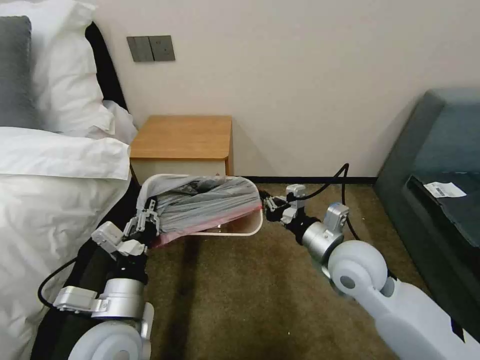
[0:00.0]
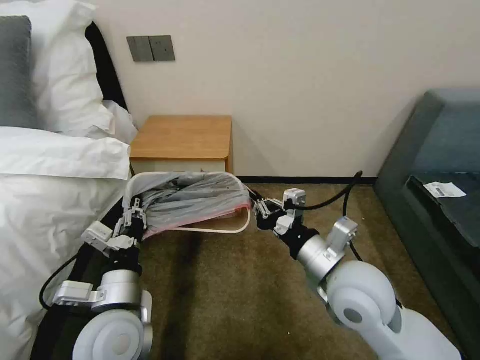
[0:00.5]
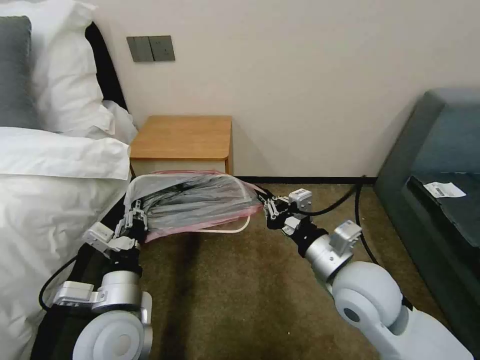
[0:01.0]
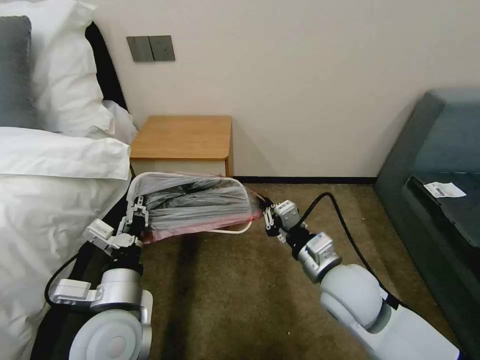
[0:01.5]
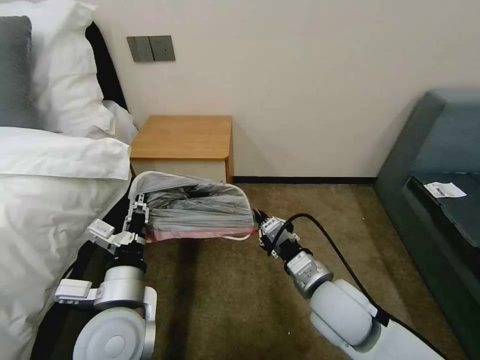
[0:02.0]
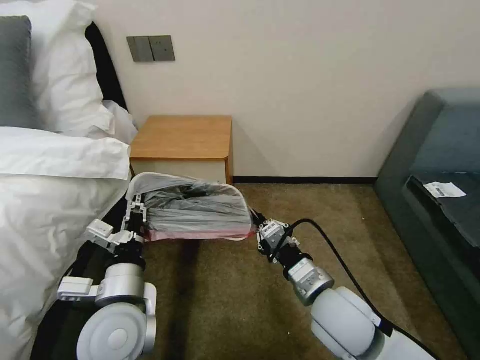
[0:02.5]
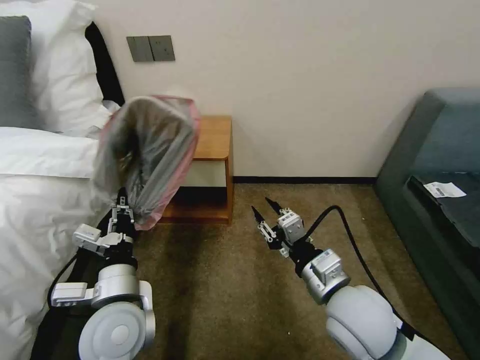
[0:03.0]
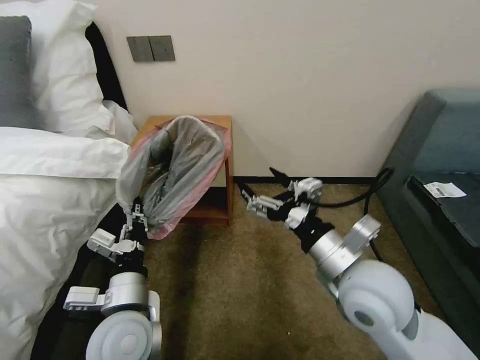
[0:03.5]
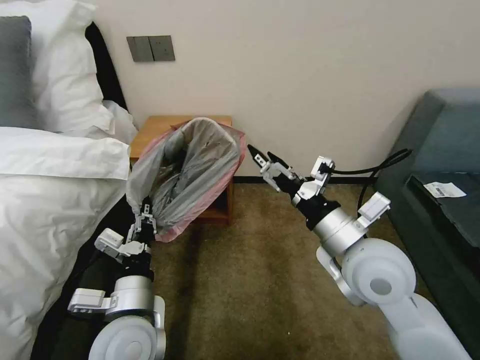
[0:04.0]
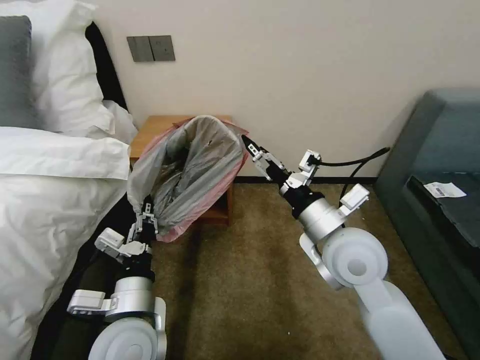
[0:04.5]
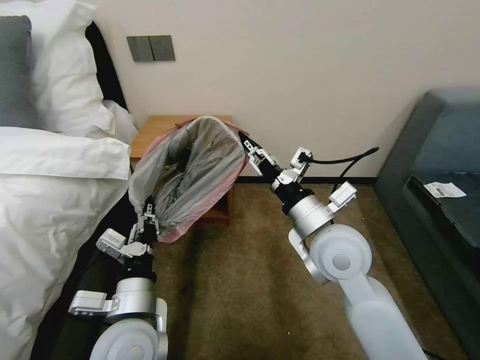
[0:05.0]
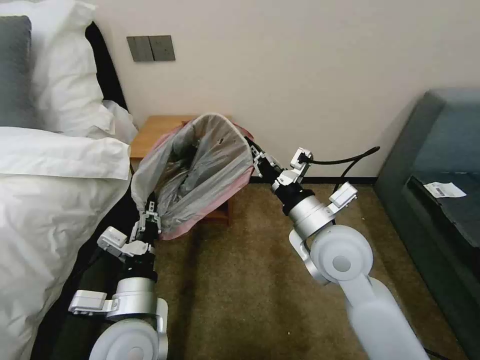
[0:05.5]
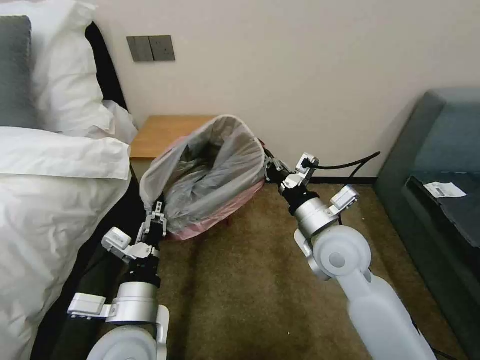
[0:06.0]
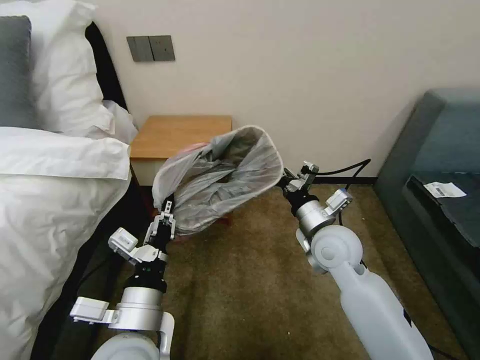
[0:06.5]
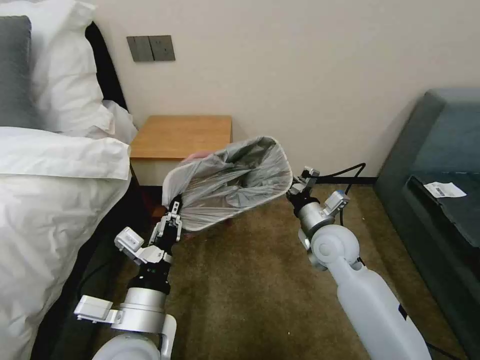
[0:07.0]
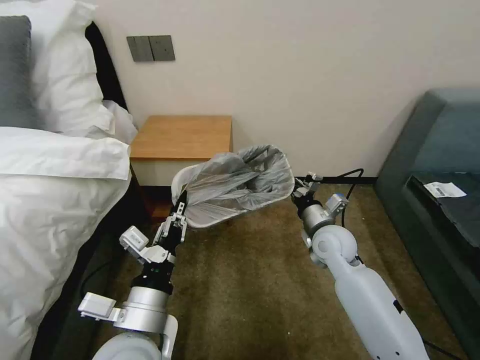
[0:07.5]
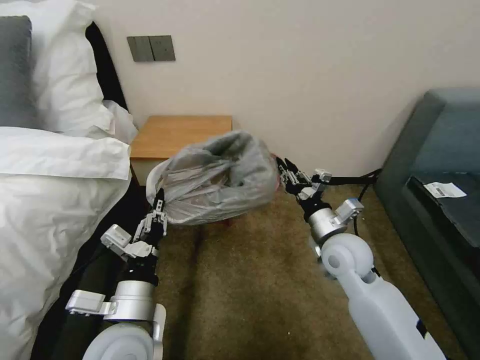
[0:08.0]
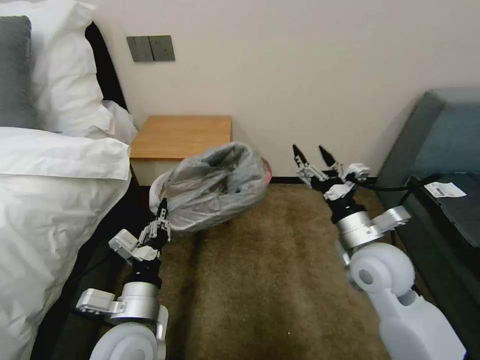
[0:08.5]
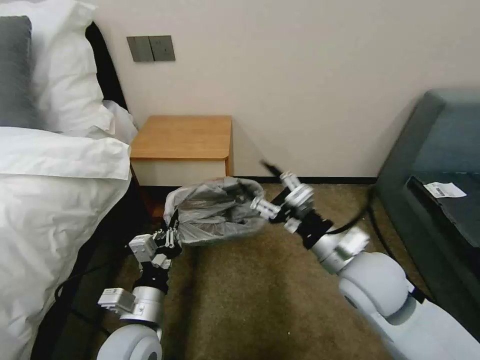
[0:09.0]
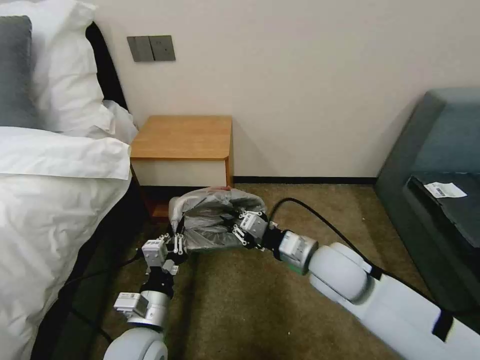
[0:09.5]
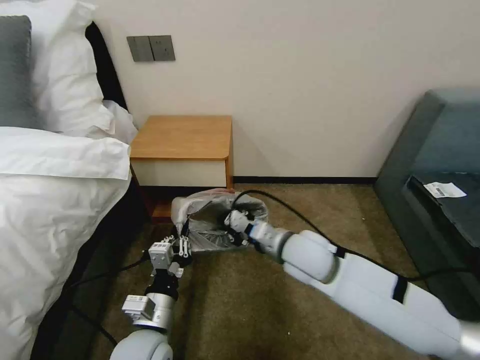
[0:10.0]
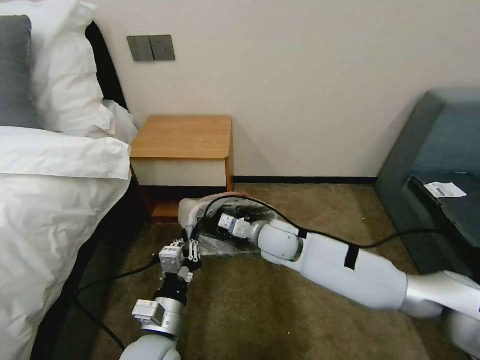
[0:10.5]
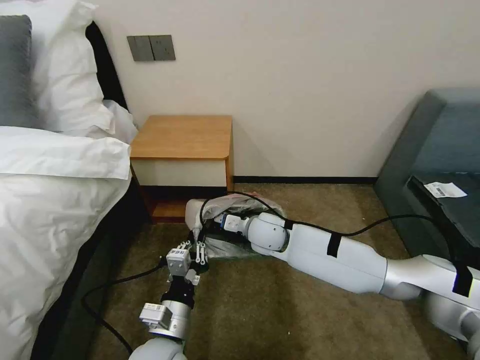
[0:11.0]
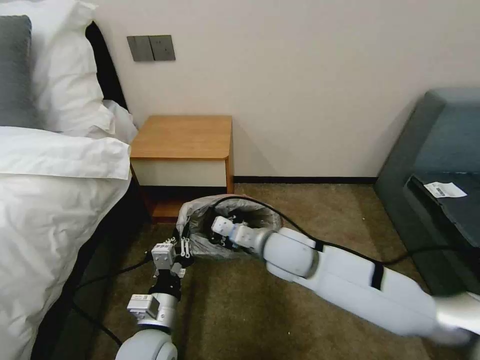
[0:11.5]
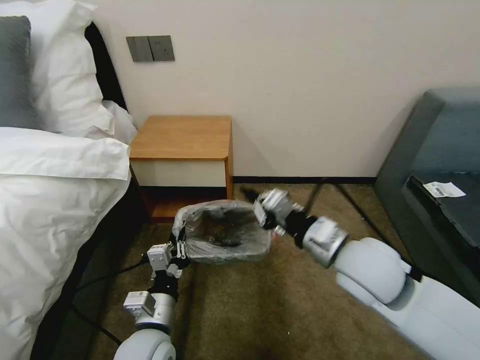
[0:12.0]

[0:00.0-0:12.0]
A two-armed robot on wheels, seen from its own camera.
Task of the whole recording: Pick up the garbage bag from the table and place it over the trash can.
0:00.0 to 0:02.0: The right gripper is displaced backward by roughly 5 cm.
0:02.0 to 0:04.0: The right gripper shifts some 10 cm upward, and opens.
0:04.0 to 0:06.0: The right gripper moves approximately 5 cm, and closes.
0:06.0 to 0:08.0: The right gripper shifts some 5 cm downward.
0:08.0 to 0:10.0: The right gripper moves to the left, some 10 cm, and opens, then closes again. Meanwhile the left gripper moves downward, approximately 10 cm.
0:10.0 to 0:12.0: The right gripper goes roughly 10 cm to the right, upward and backward.

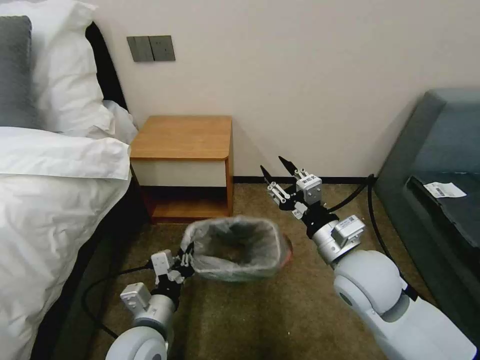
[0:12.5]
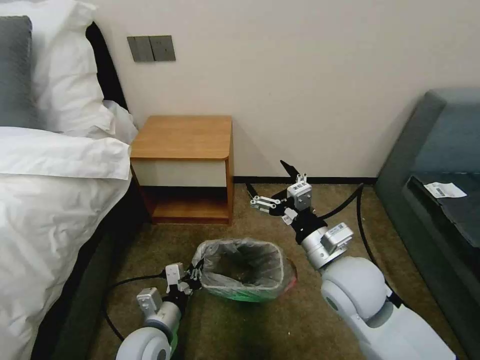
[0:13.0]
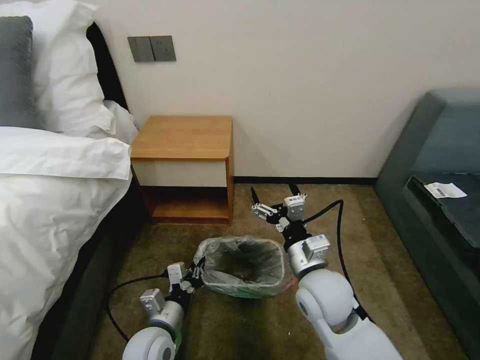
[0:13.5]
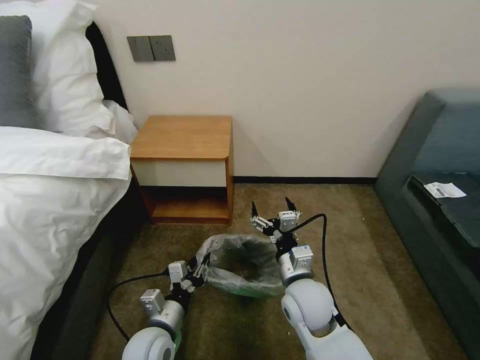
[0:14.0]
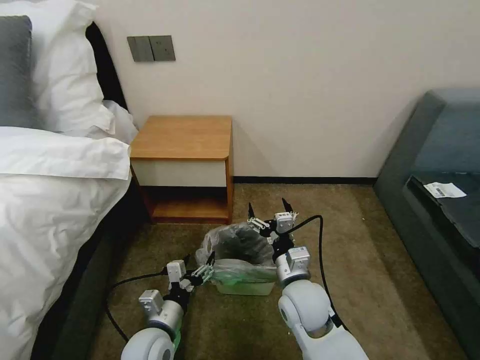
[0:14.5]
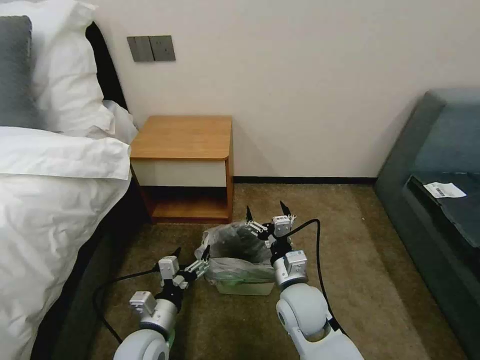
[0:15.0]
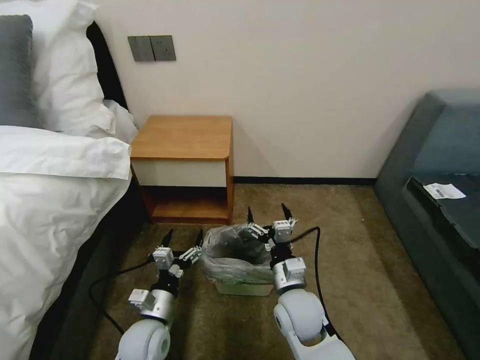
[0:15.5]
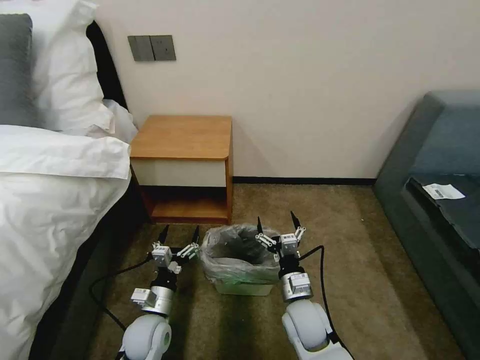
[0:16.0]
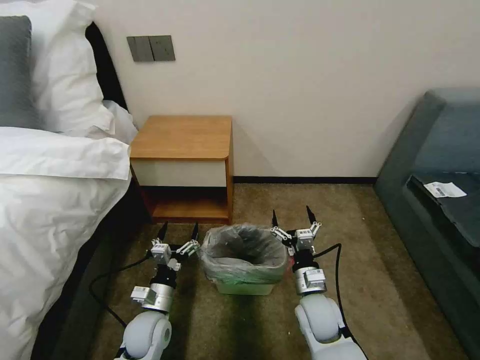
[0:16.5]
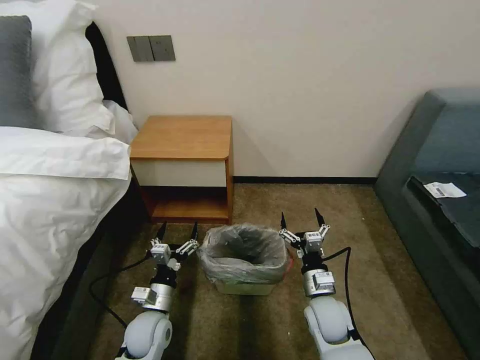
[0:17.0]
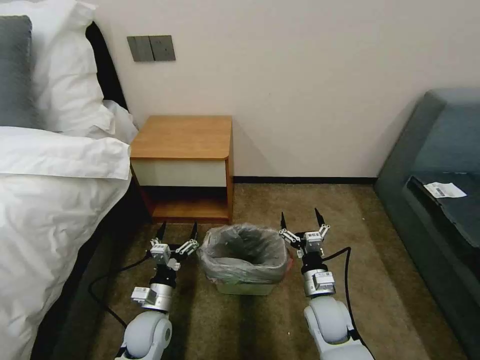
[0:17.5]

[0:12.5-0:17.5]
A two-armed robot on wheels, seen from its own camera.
Task of the whole recording: Pick up the garbage bag from the table and place it over the trash can.
0:12.5 to 0:15.0: The left gripper heads downward, covering approximately 5 cm, and opens. The right gripper moves downward and to the left, approximately 15 cm, and opens up.
0:15.0 to 0:17.5: The right gripper moves downward and to the right, some 10 cm, while the left gripper travels downward and forward by about 10 cm.

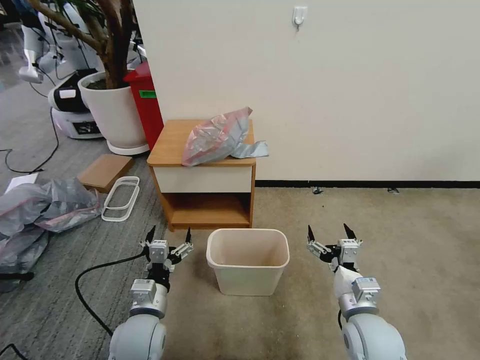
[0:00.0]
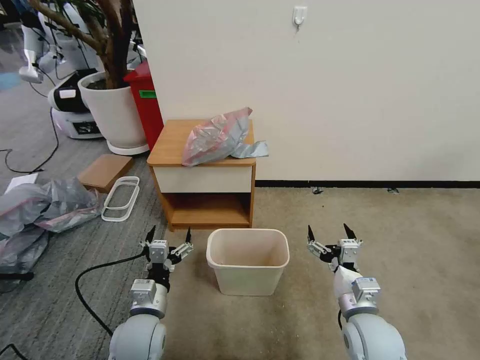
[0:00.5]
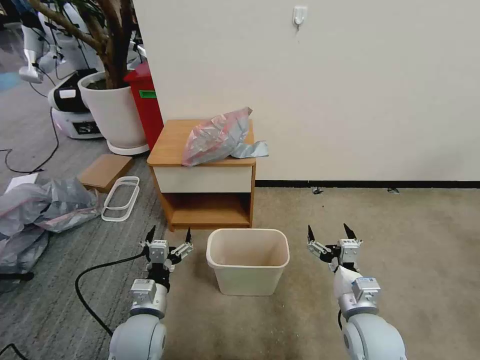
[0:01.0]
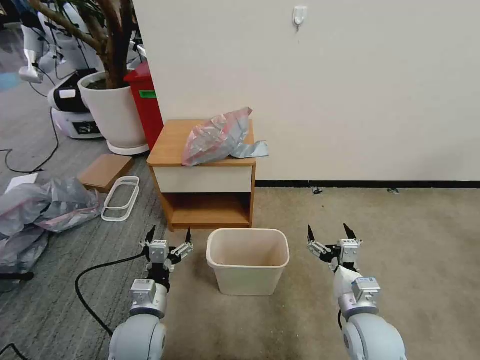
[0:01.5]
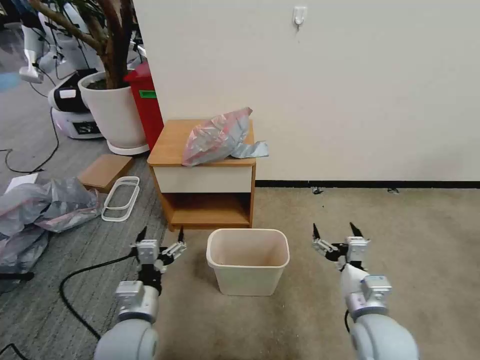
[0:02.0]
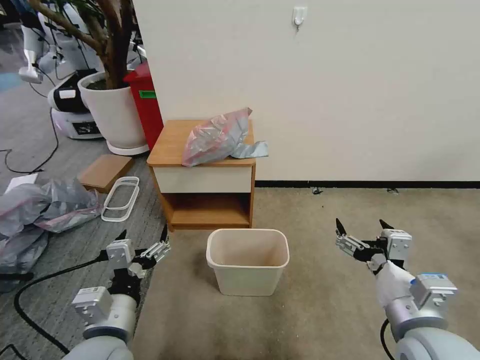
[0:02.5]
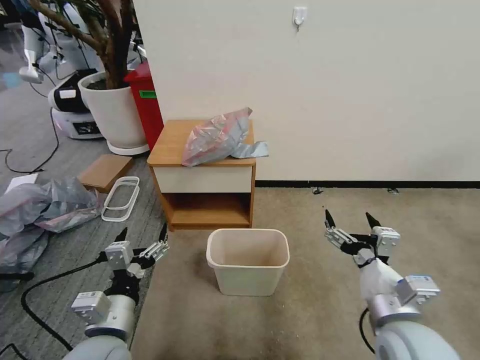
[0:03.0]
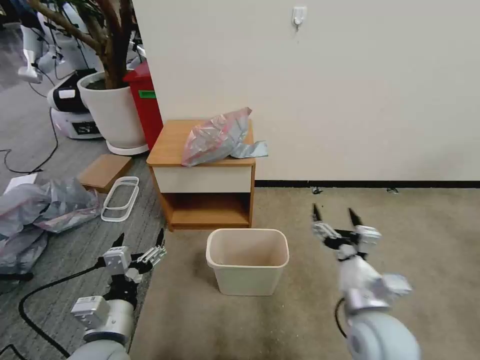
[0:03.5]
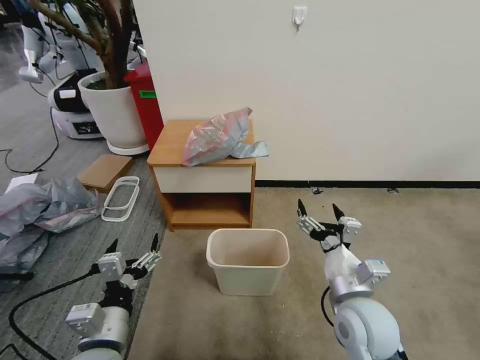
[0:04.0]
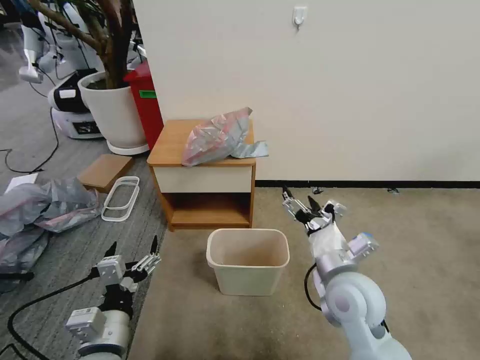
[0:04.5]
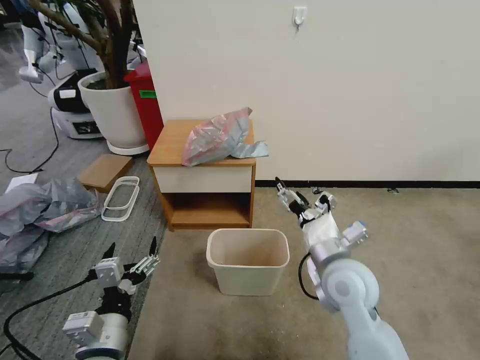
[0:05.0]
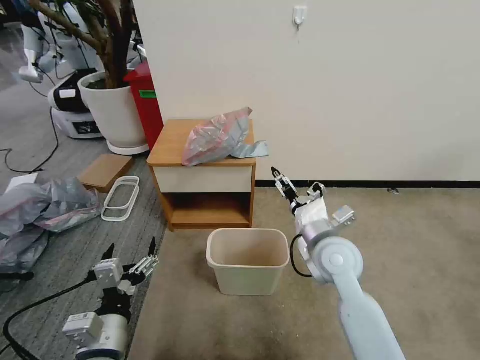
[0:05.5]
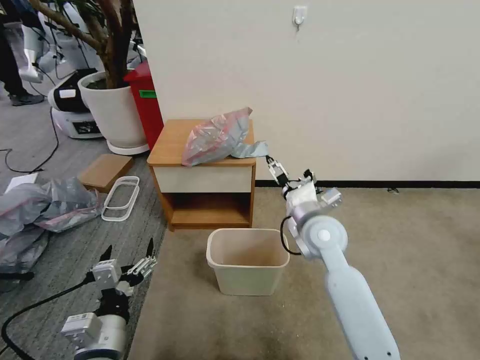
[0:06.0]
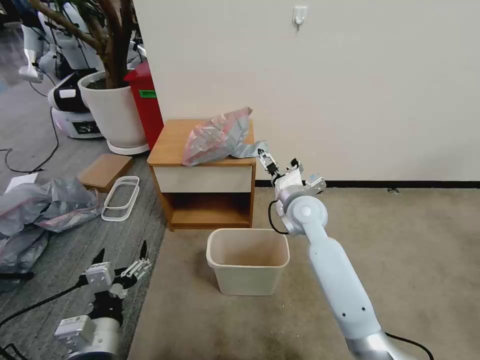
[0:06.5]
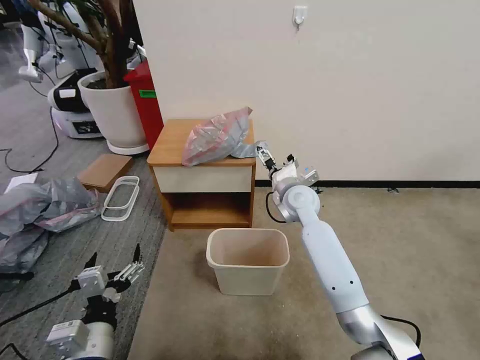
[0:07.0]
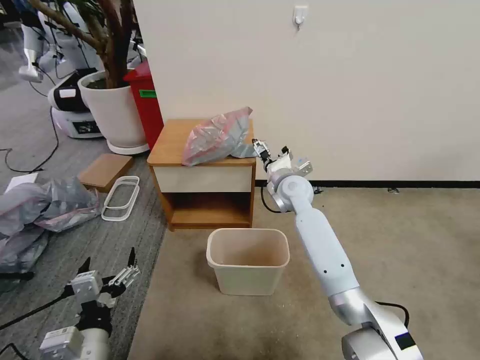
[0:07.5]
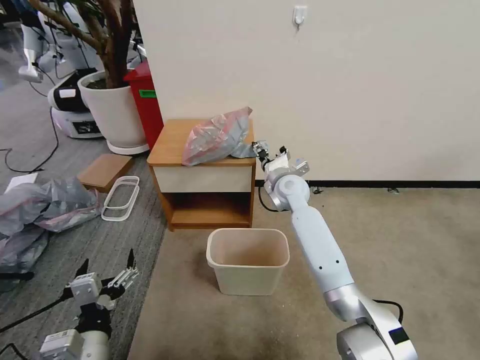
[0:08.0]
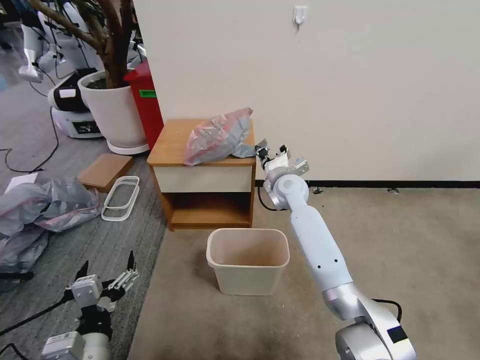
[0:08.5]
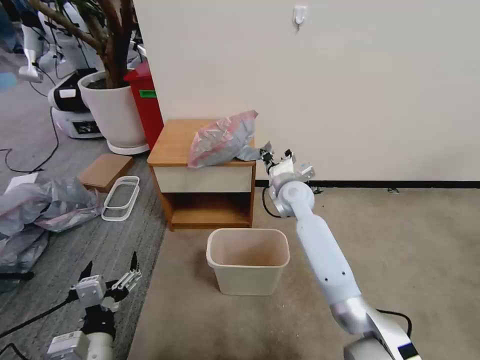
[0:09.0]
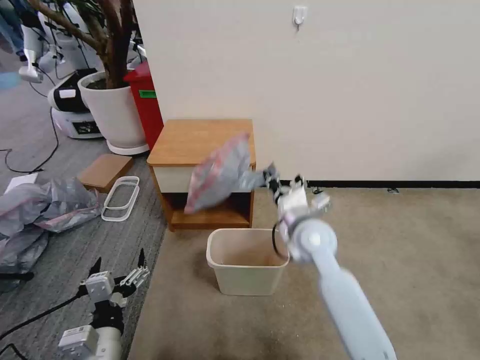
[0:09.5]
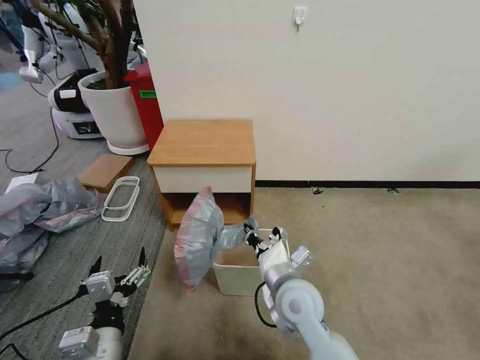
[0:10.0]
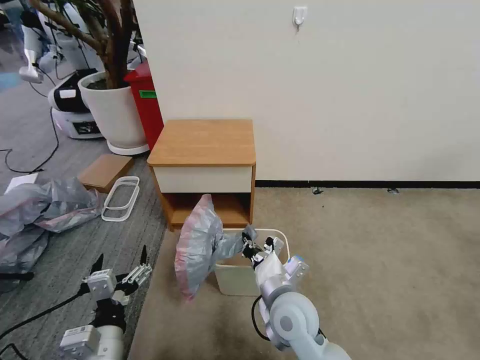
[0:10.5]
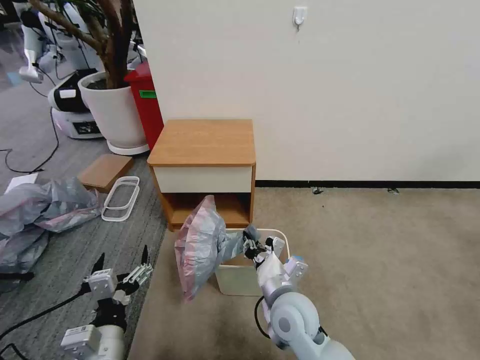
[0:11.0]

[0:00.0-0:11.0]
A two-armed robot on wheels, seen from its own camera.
Task of the whole recording: Pick up the garbage bag from the table and place it over the trash can.
0:02.0 to 0:03.5: The left gripper moves approximately 5 cm. Meanwhile the right gripper travels upward by roughly 5 cm.
0:03.5 to 0:05.5: The right gripper is displaced forward by approximately 15 cm.
0:05.5 to 0:07.5: The right gripper travels forward by about 20 cm.
0:07.5 to 0:09.0: The right gripper closes up.
0:09.0 to 0:11.0: The right gripper goes approximately 25 cm backward.
